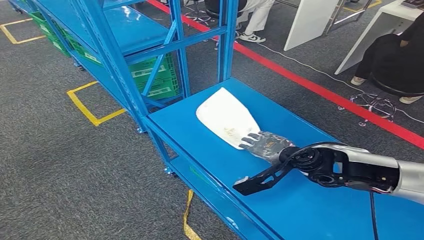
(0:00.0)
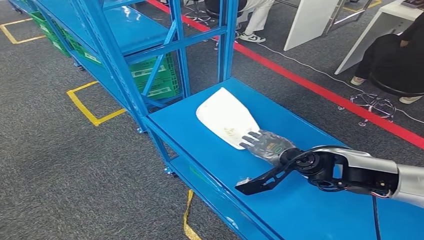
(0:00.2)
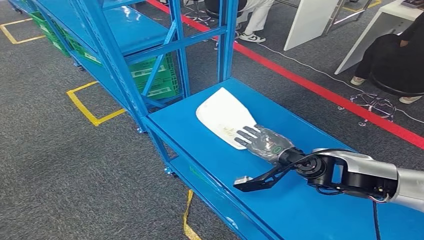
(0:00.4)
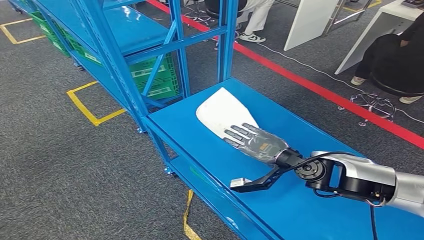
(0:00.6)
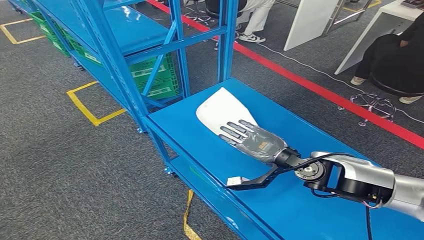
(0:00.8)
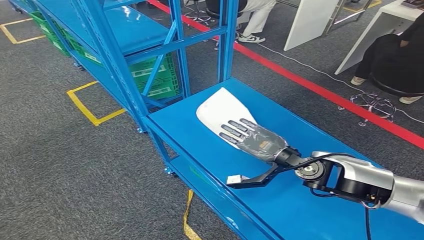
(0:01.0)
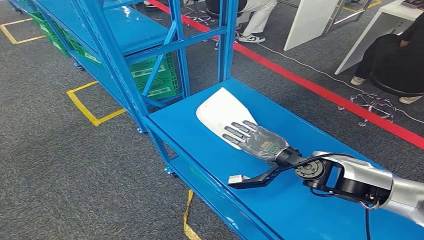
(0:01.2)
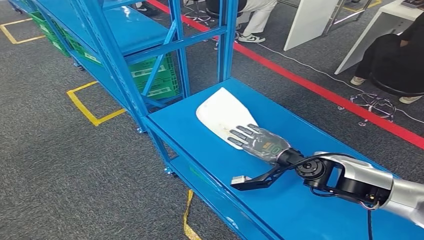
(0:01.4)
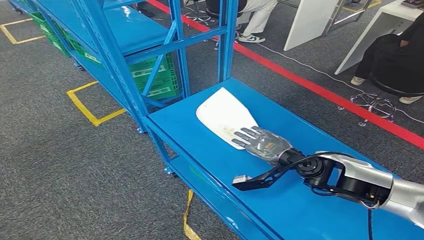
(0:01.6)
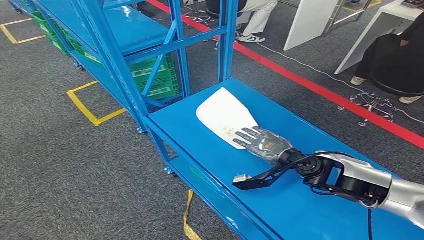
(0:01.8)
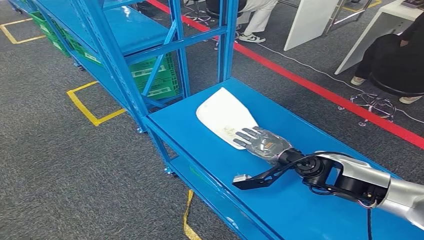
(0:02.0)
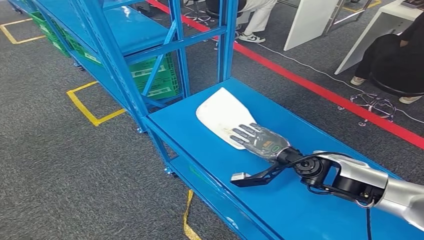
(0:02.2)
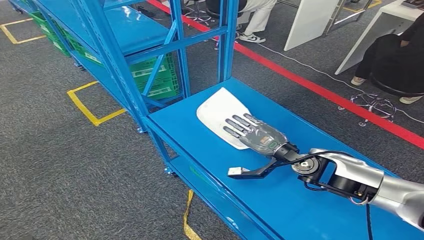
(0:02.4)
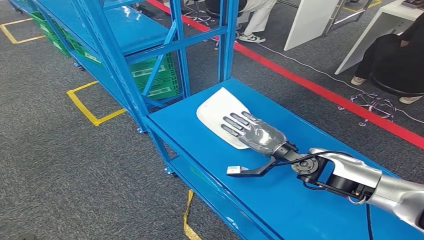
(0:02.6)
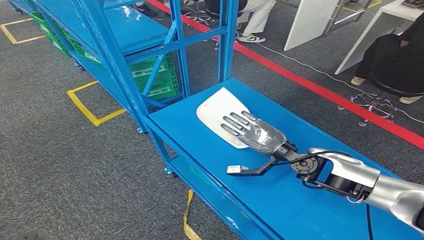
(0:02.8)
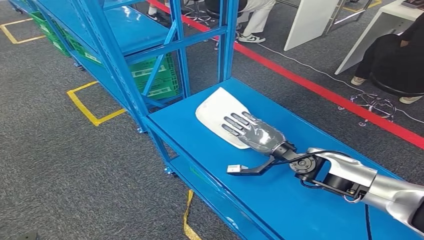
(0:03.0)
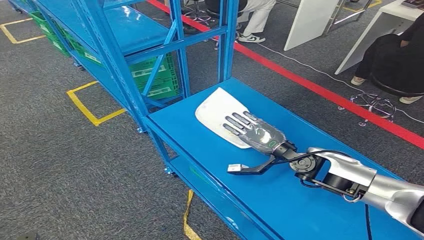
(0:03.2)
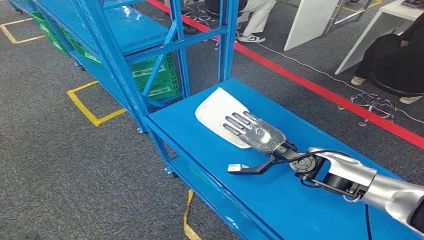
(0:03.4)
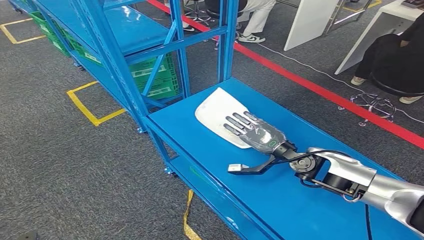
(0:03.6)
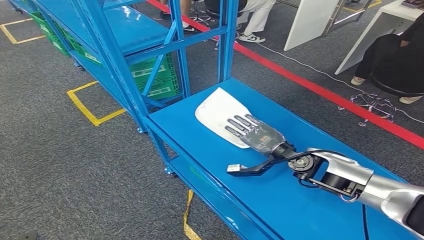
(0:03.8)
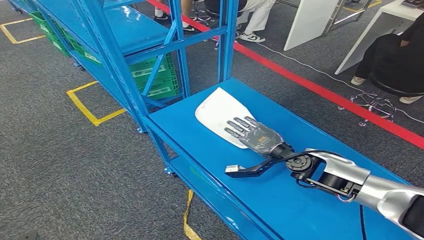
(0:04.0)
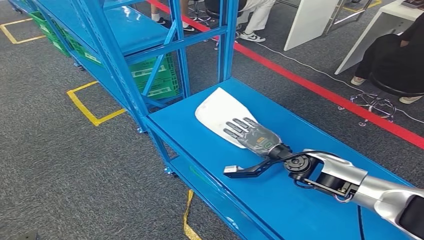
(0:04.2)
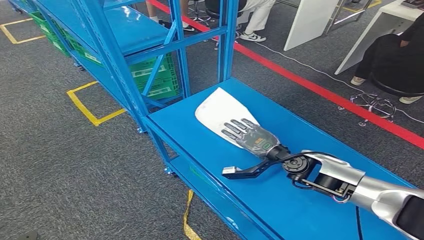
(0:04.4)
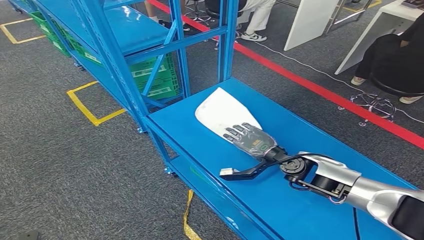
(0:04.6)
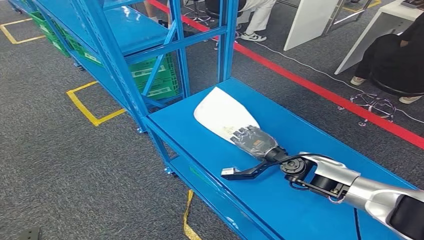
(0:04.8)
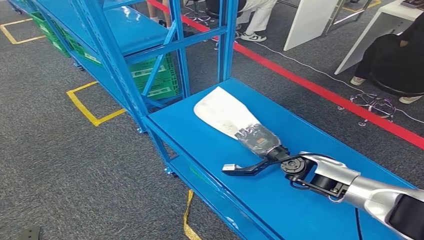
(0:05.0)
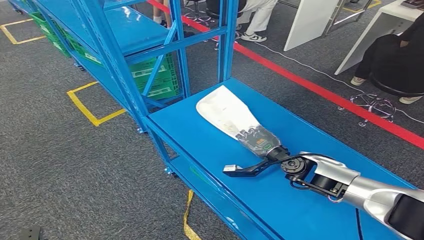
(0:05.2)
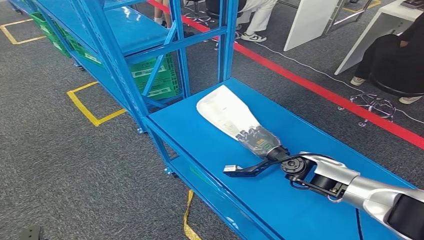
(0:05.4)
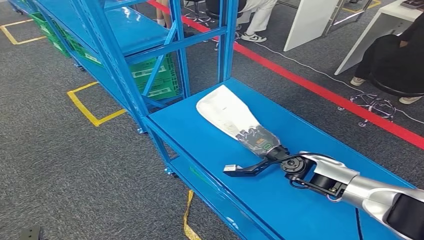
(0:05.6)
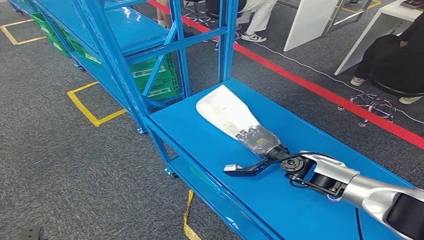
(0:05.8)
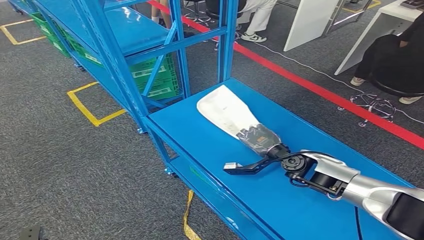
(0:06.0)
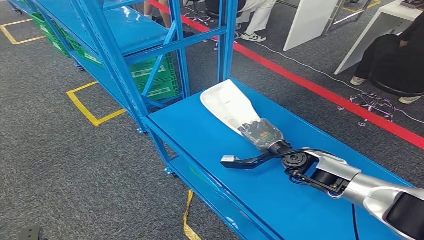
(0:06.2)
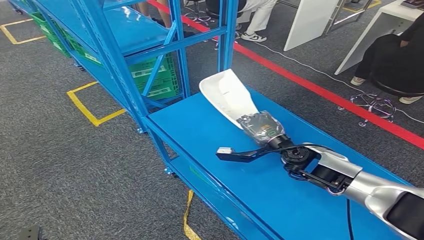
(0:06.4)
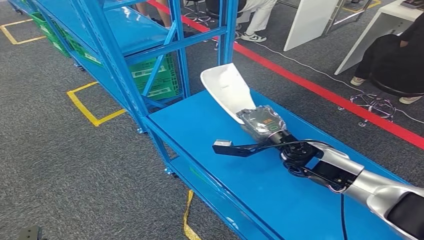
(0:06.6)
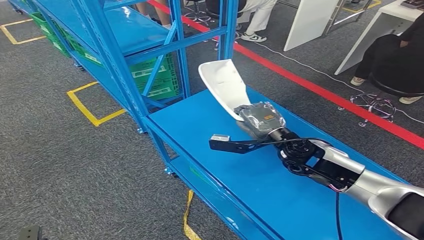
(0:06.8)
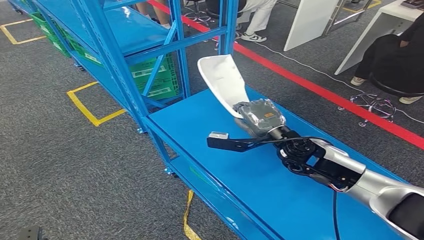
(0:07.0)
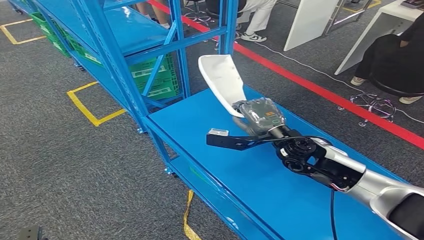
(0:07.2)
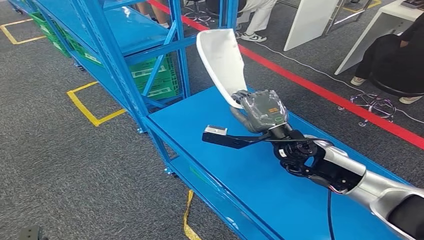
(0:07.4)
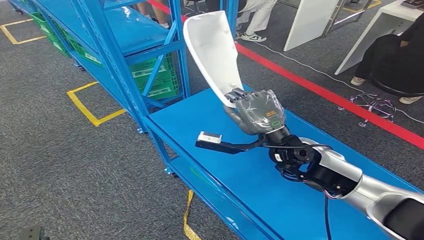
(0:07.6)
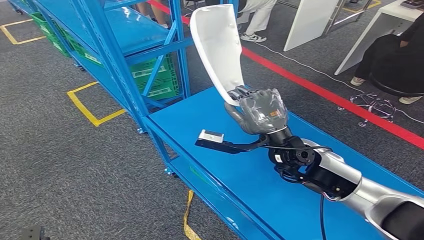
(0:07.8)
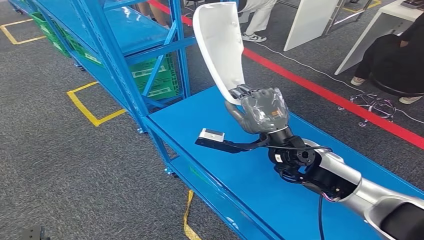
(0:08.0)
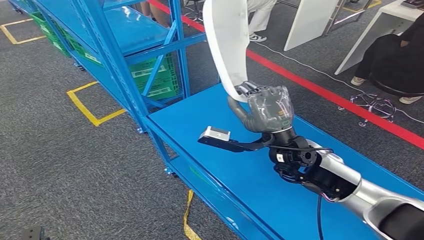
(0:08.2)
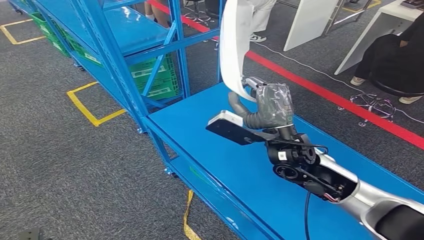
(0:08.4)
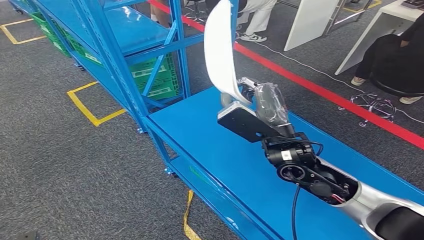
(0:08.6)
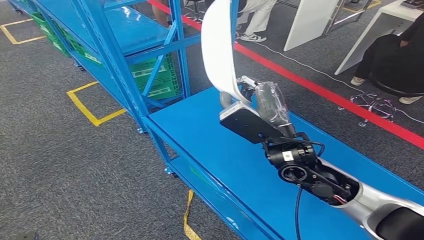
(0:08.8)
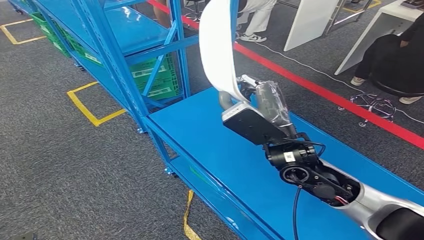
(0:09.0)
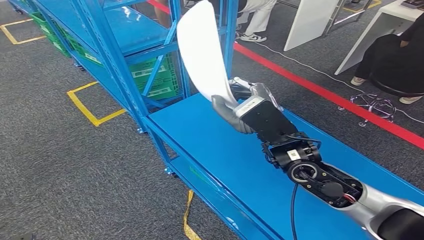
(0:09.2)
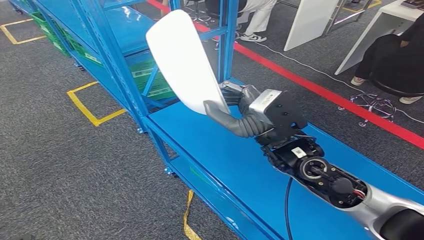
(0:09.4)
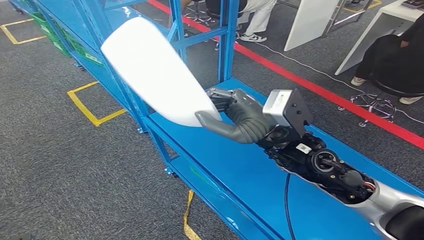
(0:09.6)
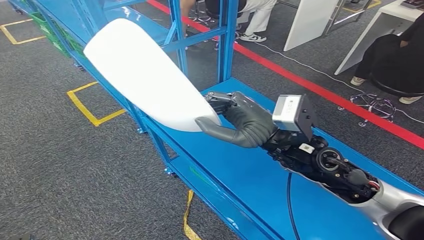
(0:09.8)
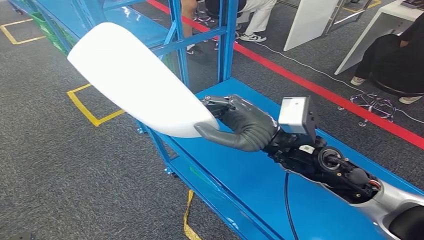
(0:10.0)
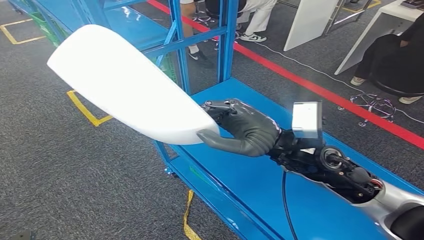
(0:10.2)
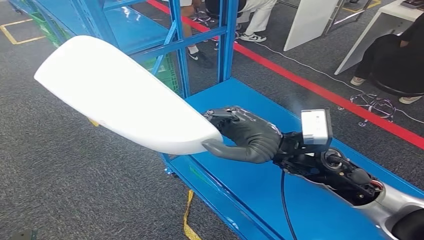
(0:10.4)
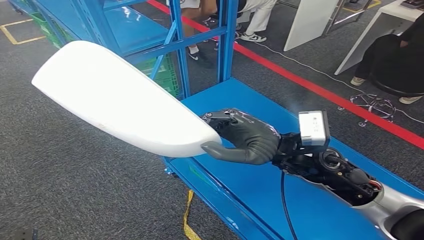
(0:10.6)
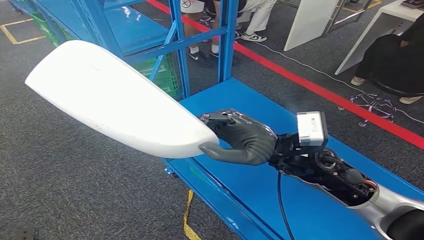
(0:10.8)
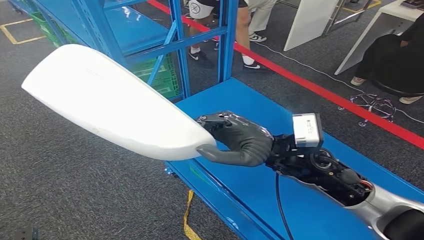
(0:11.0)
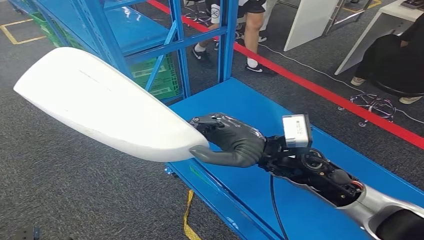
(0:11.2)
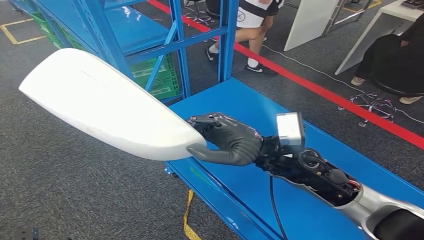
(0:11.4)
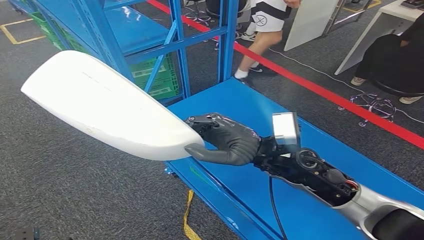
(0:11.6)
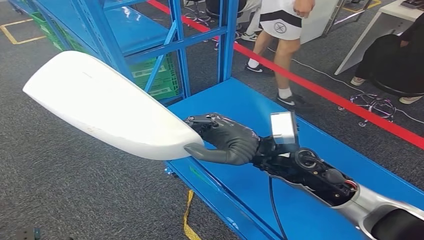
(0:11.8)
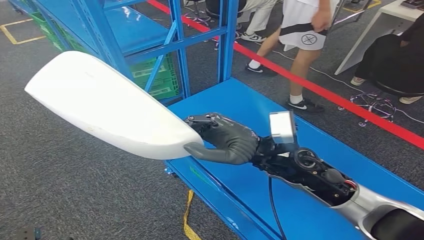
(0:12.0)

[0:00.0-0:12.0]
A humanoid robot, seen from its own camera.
Step, 0:00.0 to 0:10.2: Pick up the small parts from the shelf.
0:03.0 to 0:06.0: The hands move only a little.
0:06.0 to 0:07.6: The right hand is displaced upward and to the left by some 15 cm.
0:07.6 to 0:09.0: The right hand goes about 5 cm upward.

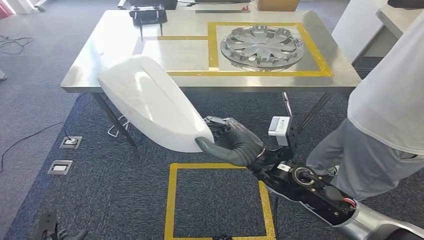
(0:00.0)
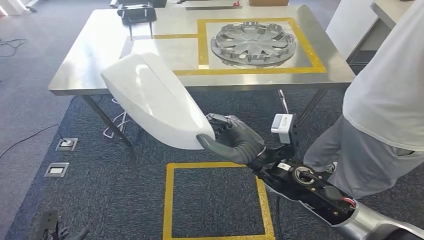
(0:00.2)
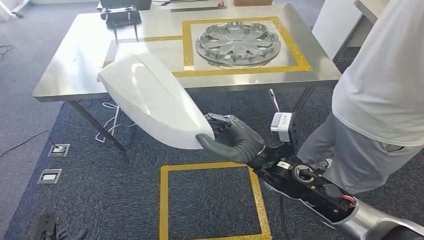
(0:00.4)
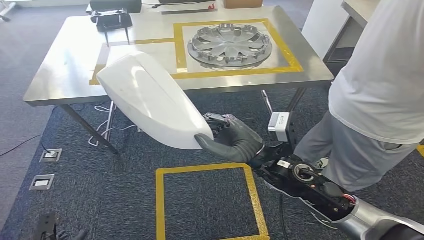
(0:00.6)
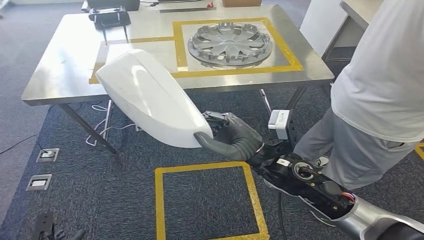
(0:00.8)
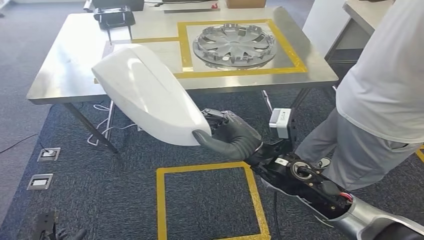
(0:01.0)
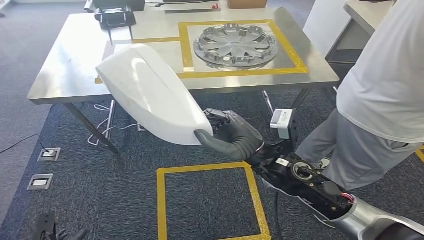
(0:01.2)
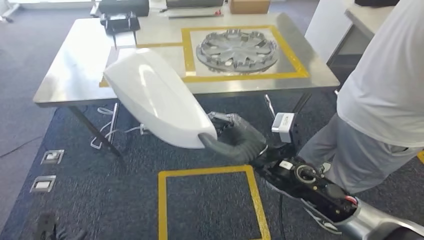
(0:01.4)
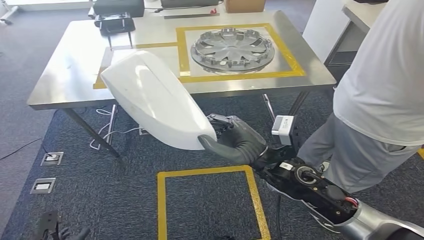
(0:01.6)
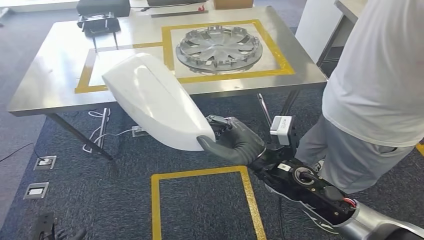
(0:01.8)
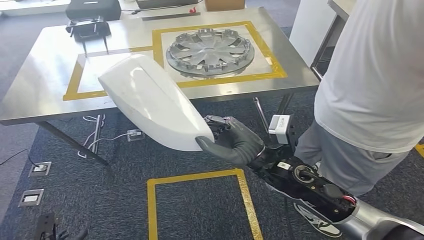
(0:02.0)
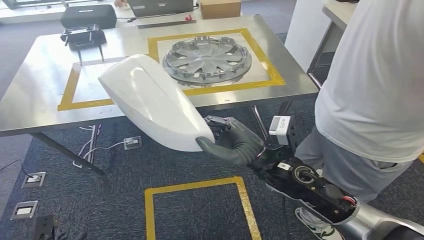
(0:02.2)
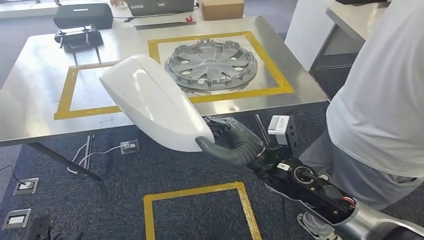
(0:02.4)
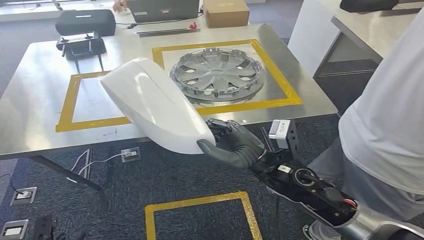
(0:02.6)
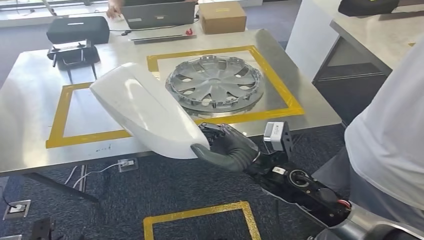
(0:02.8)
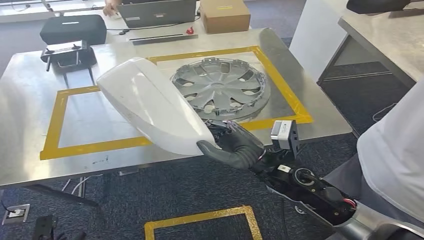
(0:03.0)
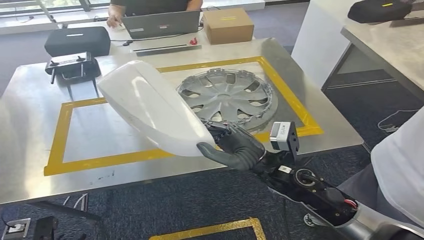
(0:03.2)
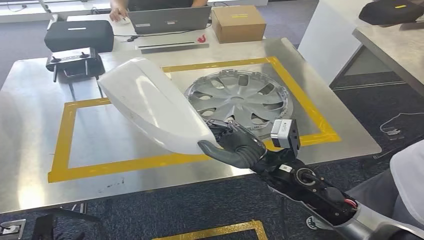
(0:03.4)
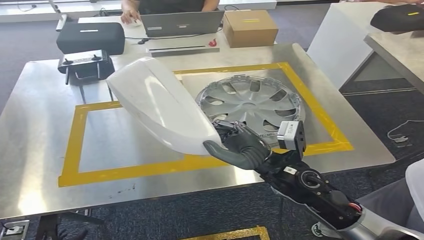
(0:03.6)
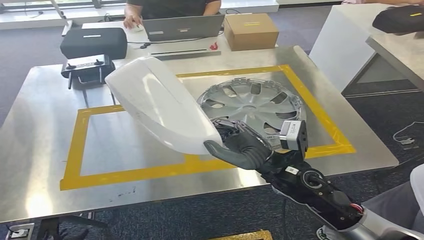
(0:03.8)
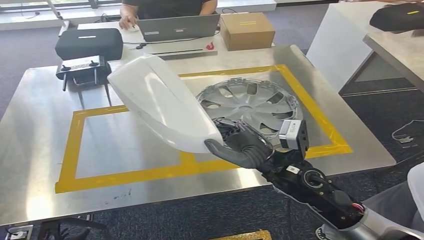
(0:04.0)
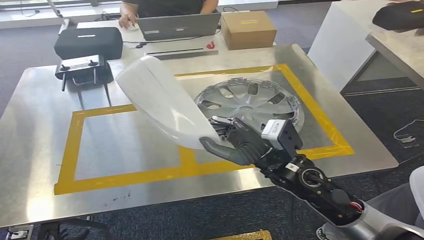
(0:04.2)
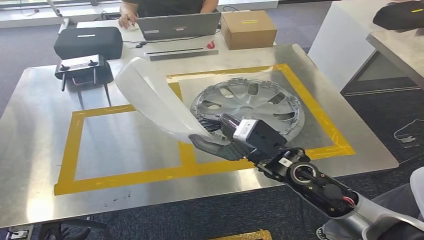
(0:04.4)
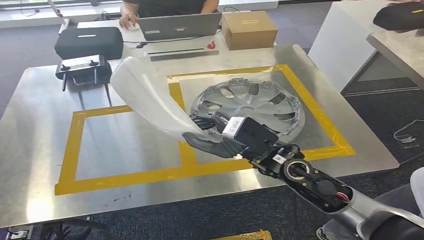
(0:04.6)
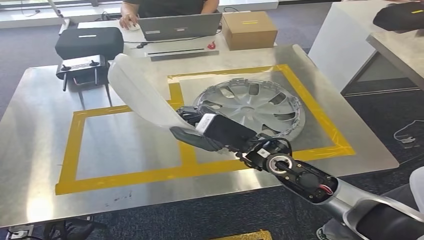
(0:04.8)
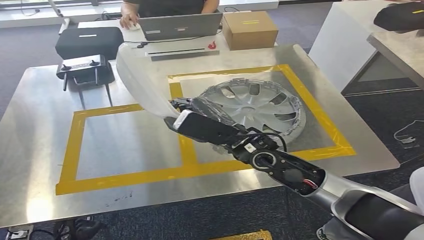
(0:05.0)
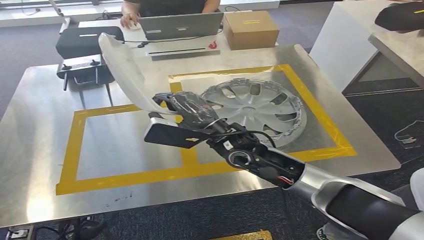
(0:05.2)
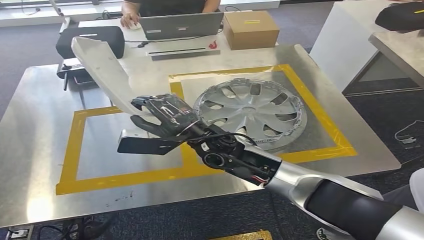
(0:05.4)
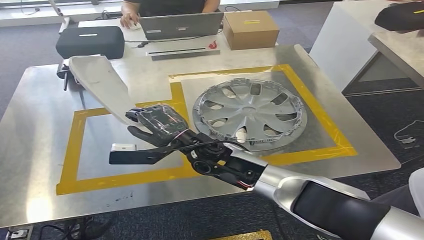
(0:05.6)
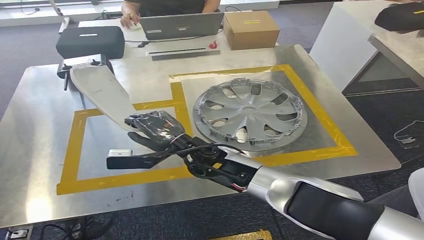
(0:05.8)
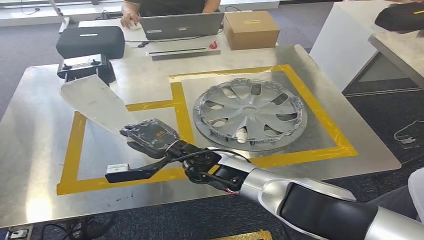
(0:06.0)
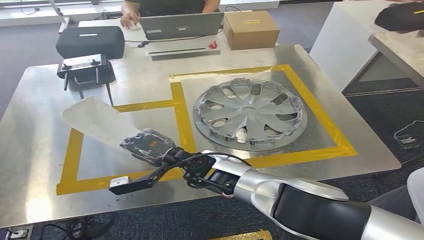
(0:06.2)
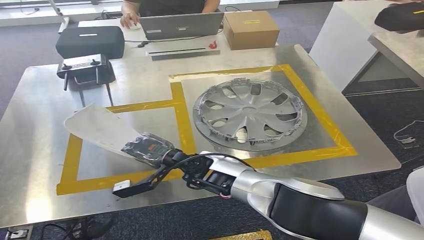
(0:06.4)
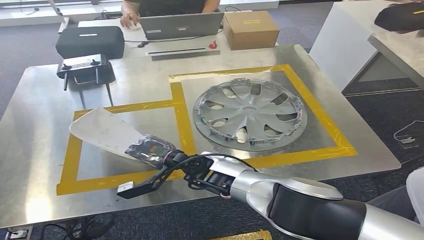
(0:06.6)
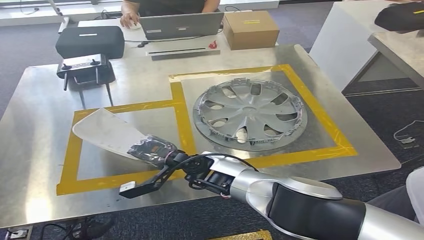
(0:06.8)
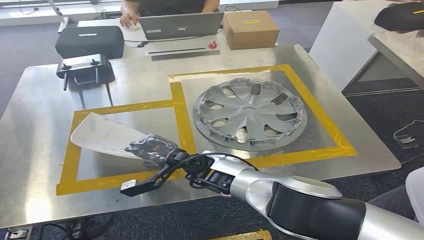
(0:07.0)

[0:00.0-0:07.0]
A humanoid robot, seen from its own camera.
Step, 0:00.0 to 0:03.6: Move the small parts to the workbench.
0:05.6 to 0:07.0: The right hand heads downward, covering some 10 cm.
